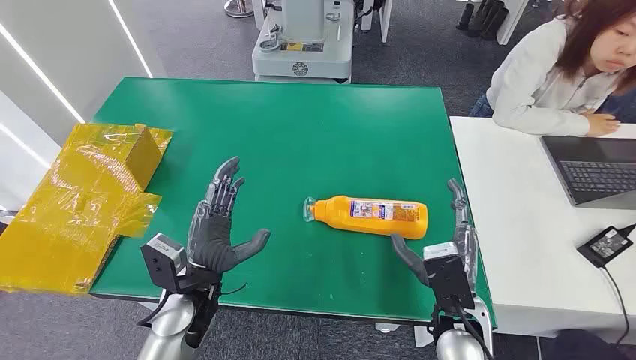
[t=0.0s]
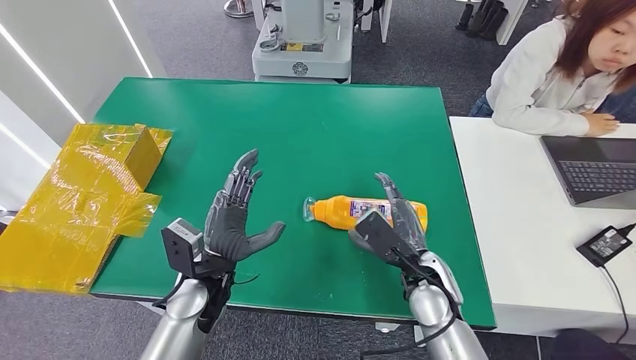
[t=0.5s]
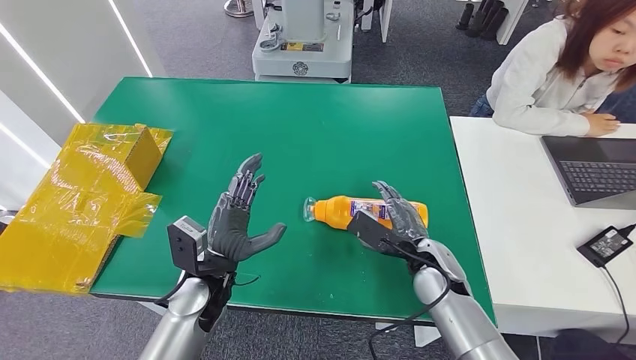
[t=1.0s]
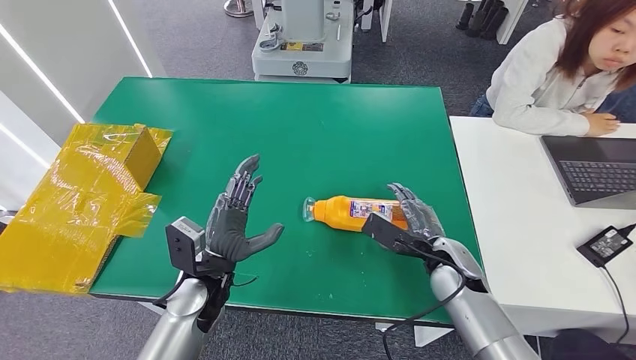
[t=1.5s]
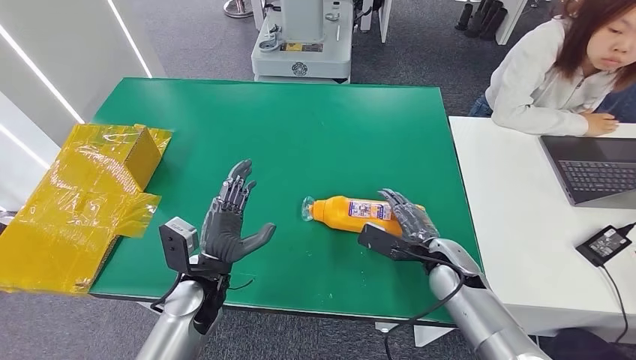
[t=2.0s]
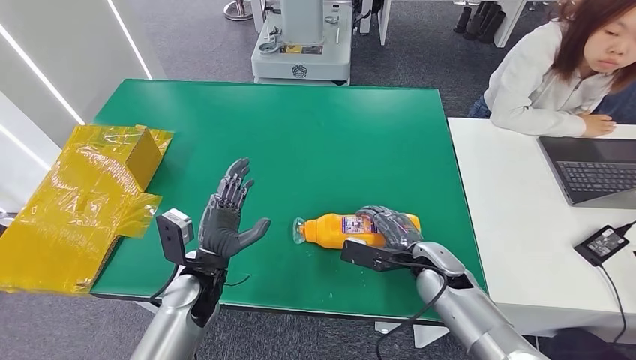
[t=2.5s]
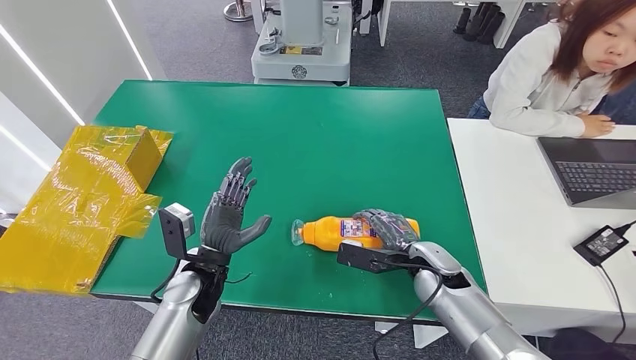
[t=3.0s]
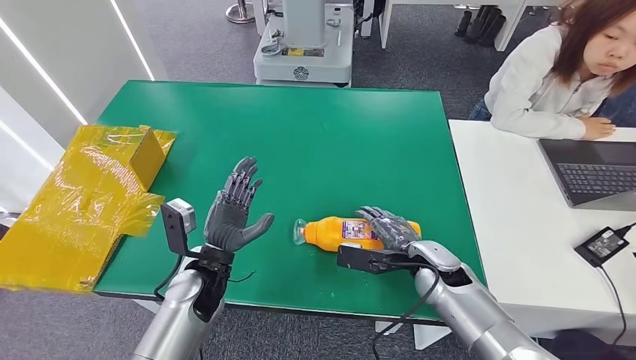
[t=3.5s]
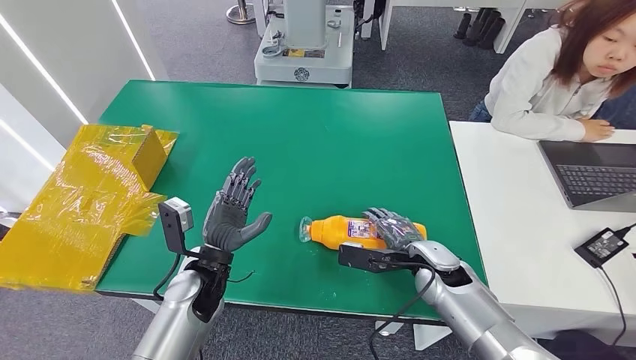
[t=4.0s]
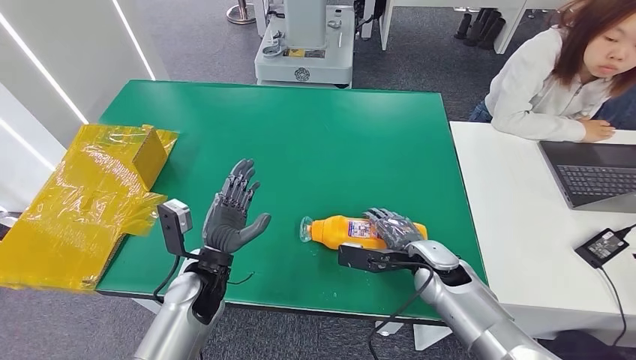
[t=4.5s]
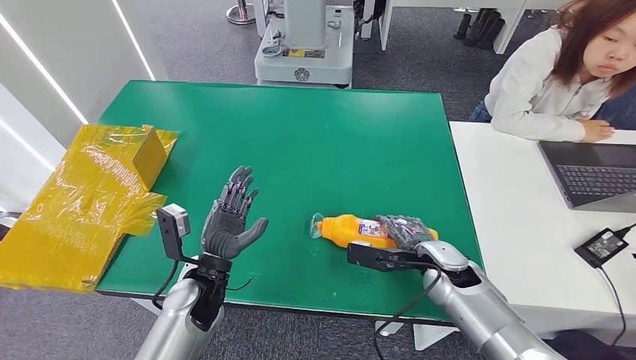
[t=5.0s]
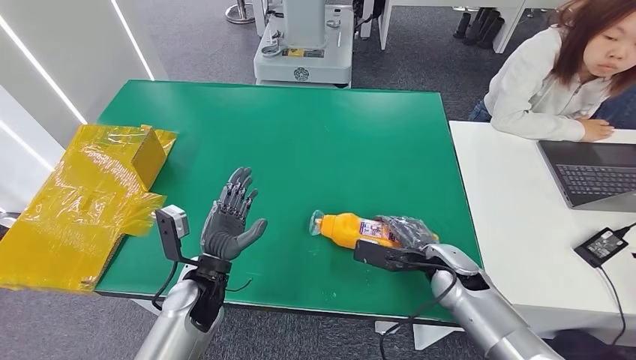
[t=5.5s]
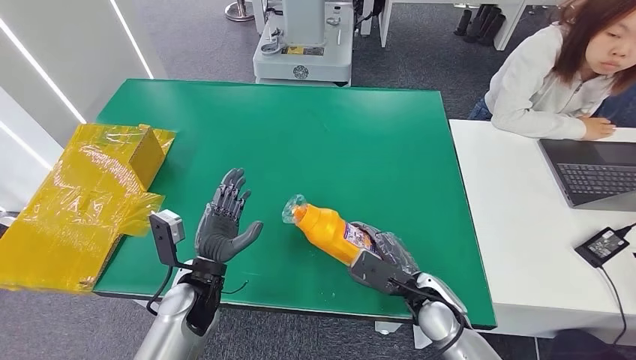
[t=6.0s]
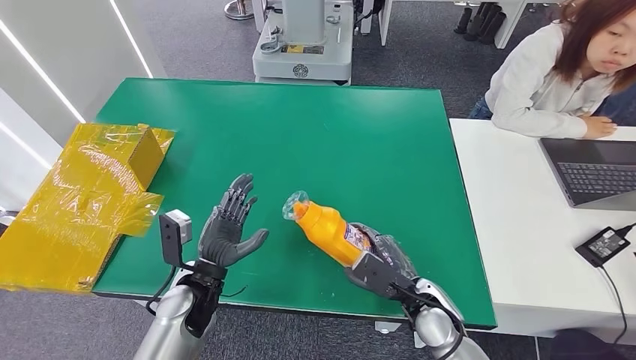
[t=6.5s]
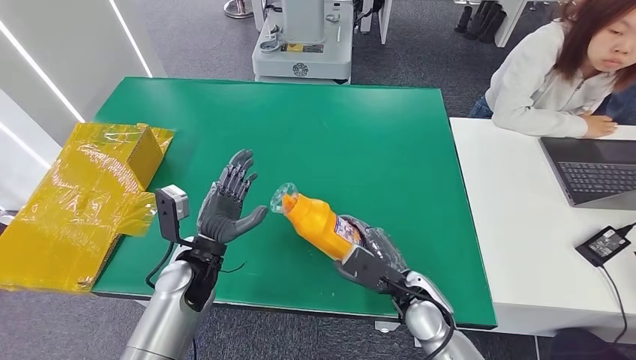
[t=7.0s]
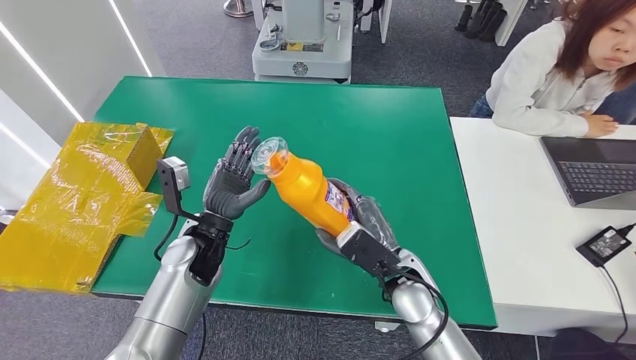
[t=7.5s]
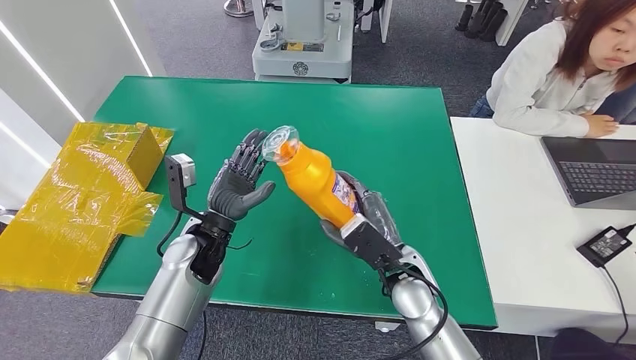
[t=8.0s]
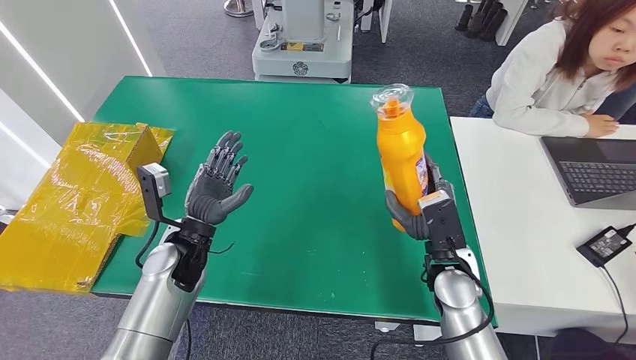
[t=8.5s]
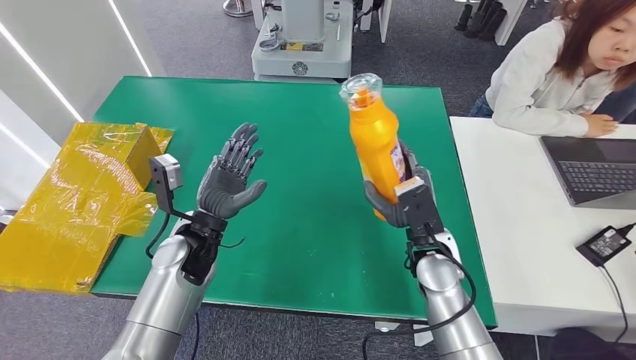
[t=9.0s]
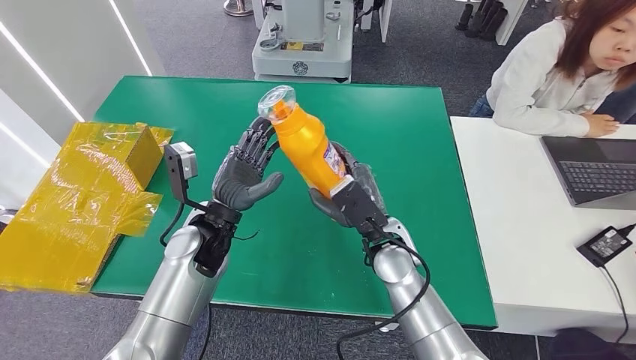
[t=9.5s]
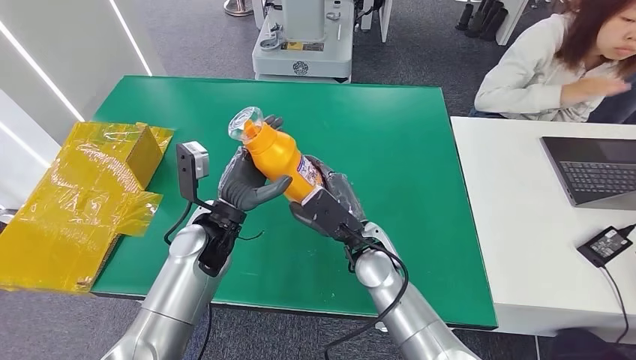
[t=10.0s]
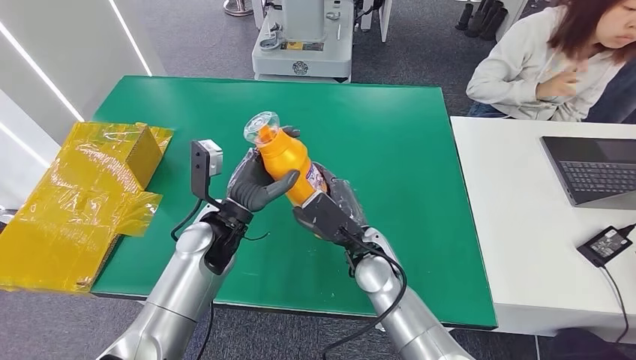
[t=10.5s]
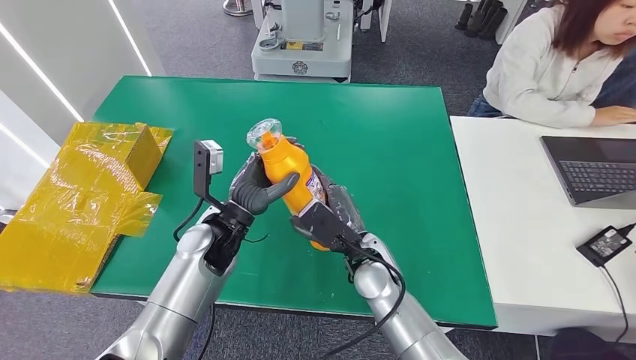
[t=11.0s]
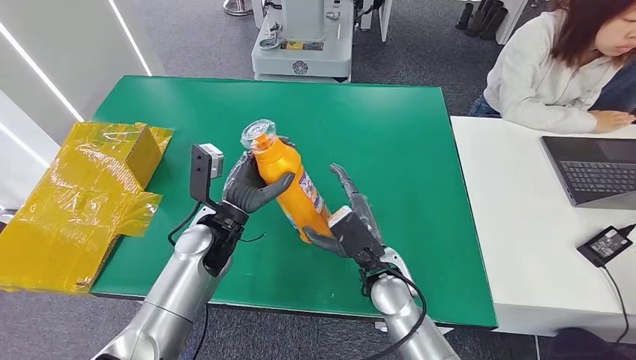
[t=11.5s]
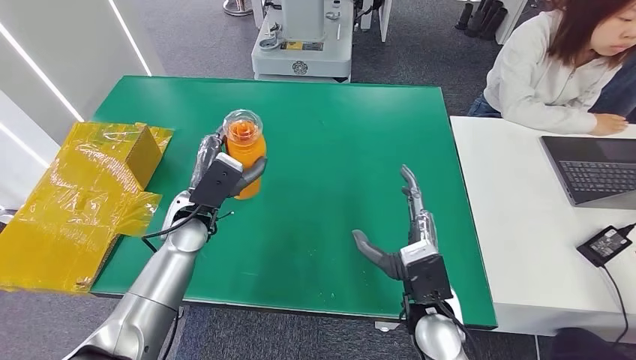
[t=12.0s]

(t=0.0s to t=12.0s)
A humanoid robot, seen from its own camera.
Step, t=0.0s - t=8.0s: Pick up the bottle from the table.
t=4.0s - t=6.0s: The right hand is displaced backward by roughly 5 cm.
t=6.0s - t=8.0s: The right hand moves to the left and upward, approximately 10 cm, while the left hand moves forward, about 5 cm.
t=8.0s - t=10.0s: The right hand heads to the left, covering about 5 cm.
t=10.0s - t=12.0s: The right hand heads backward and to the right, covering about 10 cm. Meanwhile the left hand changes place by about 5 cm.

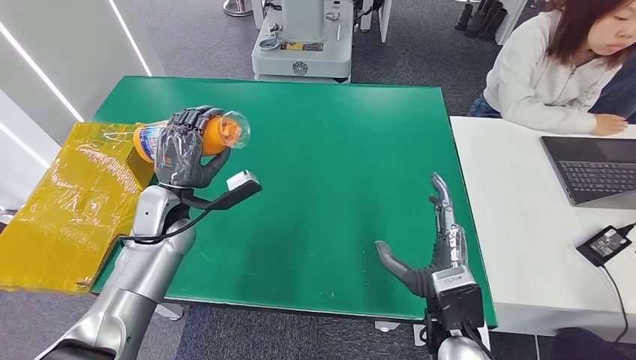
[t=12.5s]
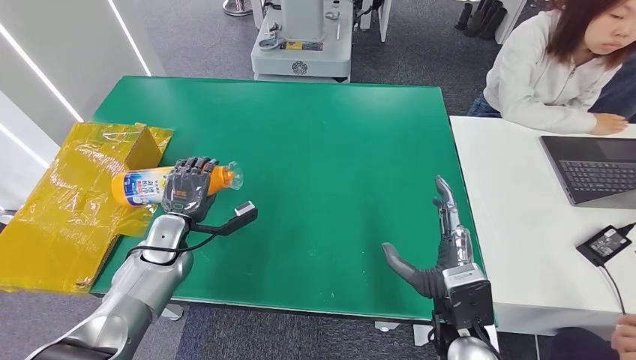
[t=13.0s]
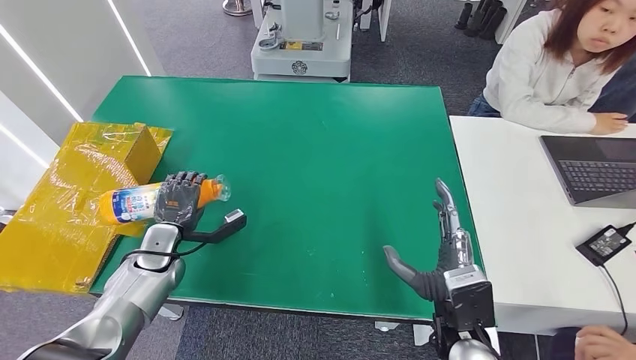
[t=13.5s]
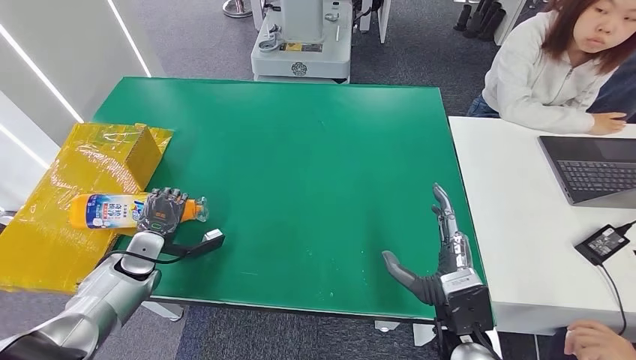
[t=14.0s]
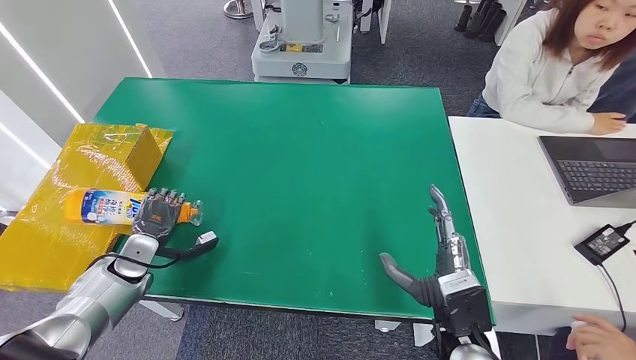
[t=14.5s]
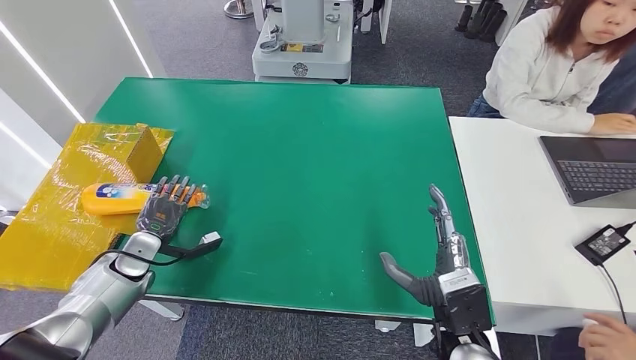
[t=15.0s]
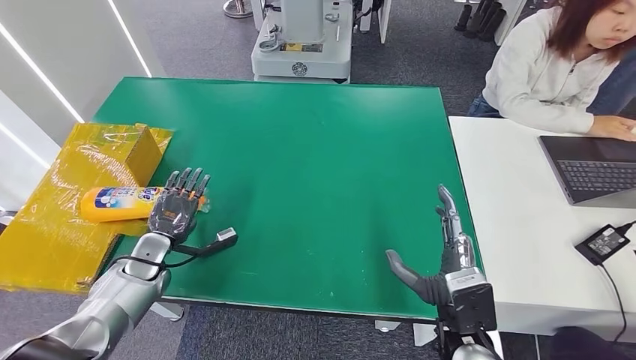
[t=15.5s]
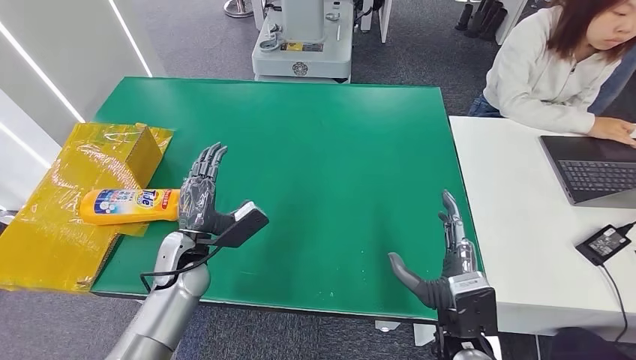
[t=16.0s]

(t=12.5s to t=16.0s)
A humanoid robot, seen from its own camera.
Step, t=12.5s - t=16.0s: Turn the bottle to the front side.
t=12.5s - t=14.5s: The left hand shifts some 20 cm to the left and downward.
t=14.5s - t=16.0s: The left hand is displaced to the right by some 15 cm.
